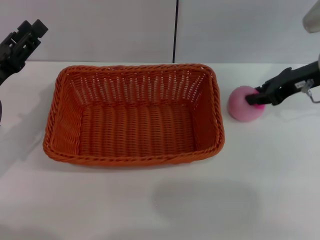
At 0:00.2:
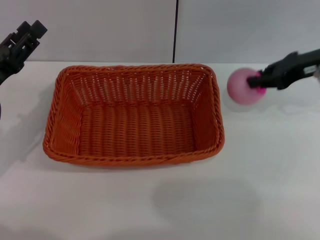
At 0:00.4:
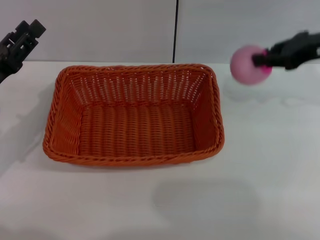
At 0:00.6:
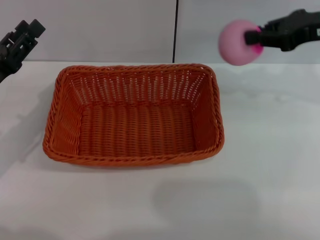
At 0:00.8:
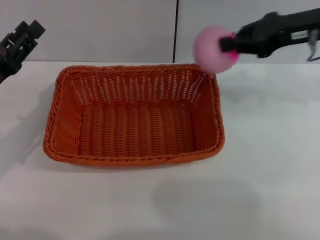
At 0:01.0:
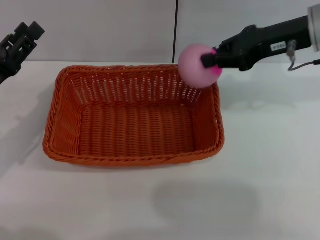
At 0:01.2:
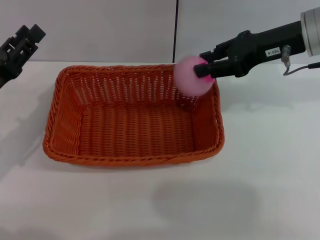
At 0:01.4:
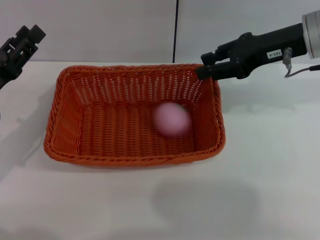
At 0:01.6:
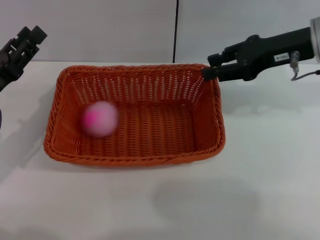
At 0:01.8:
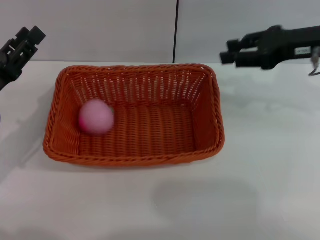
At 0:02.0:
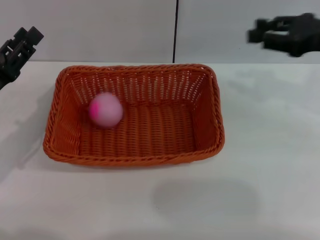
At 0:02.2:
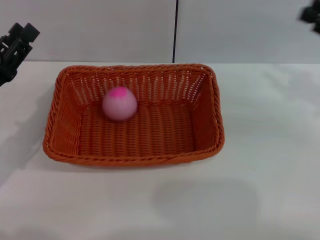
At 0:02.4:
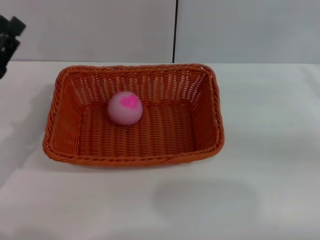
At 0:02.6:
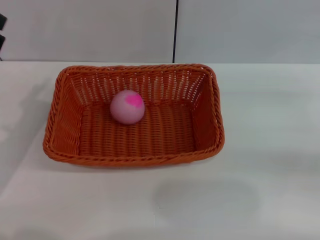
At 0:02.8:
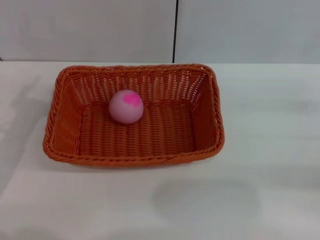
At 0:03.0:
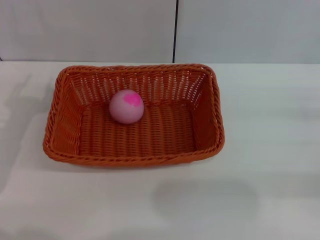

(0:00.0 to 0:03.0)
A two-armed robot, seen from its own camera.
0:00.0 - 0:01.6: The right gripper goes some 5 cm upward.
0:01.6 - 0:03.0: The right gripper moves to the right, backward and downward, some 25 cm.
